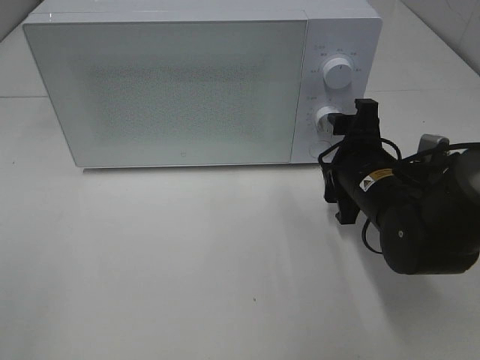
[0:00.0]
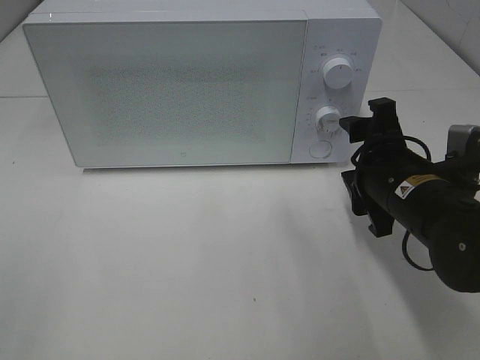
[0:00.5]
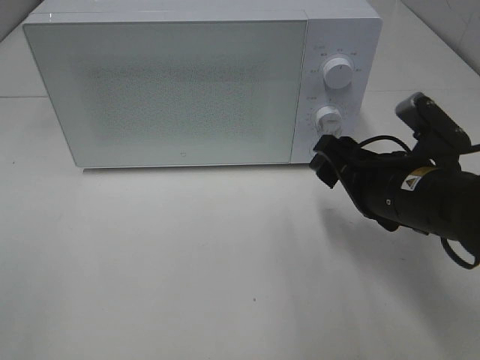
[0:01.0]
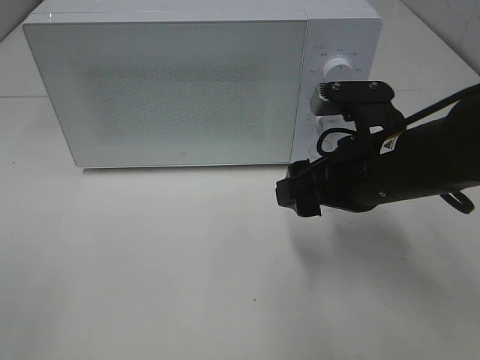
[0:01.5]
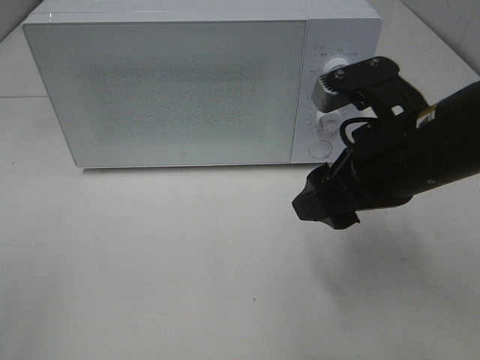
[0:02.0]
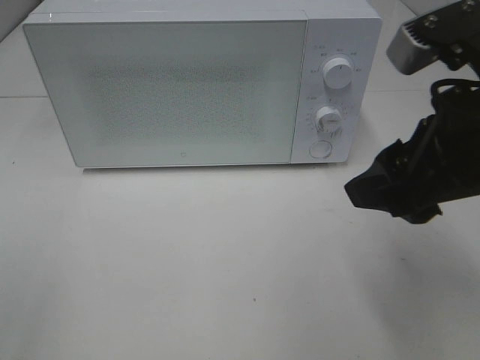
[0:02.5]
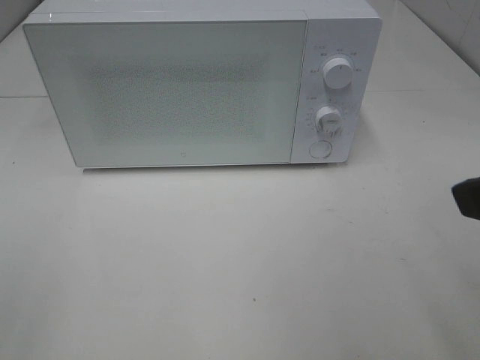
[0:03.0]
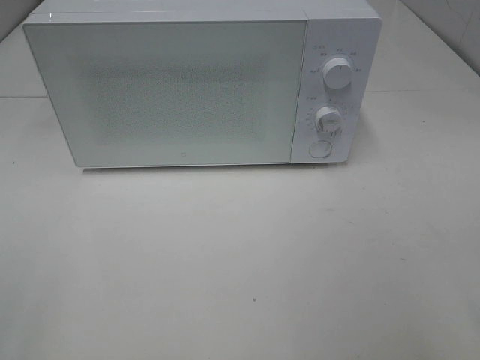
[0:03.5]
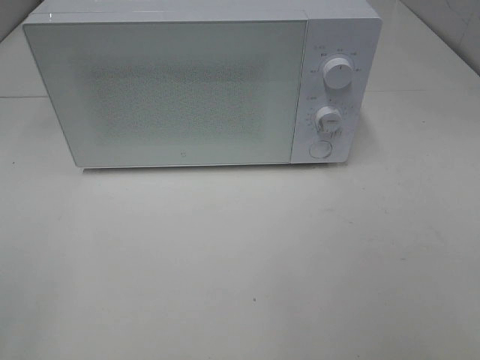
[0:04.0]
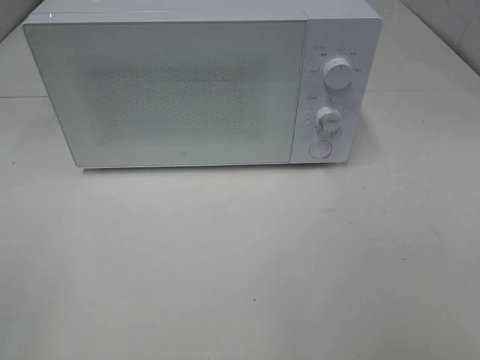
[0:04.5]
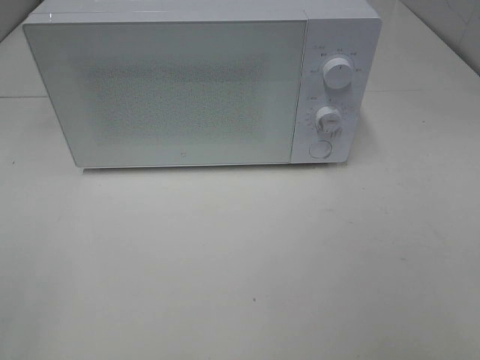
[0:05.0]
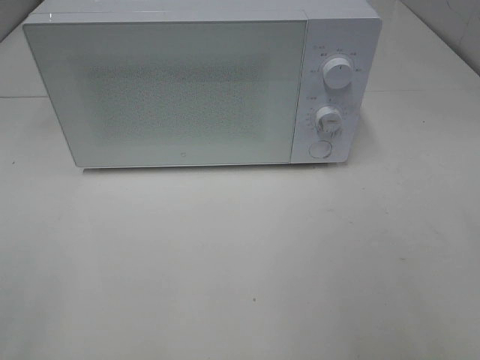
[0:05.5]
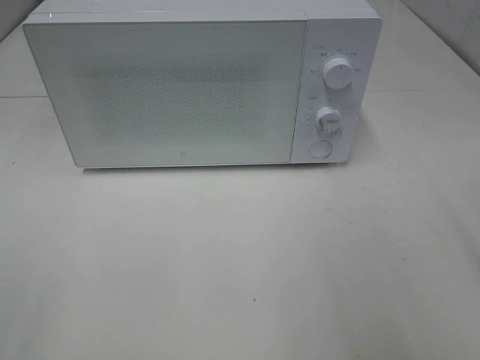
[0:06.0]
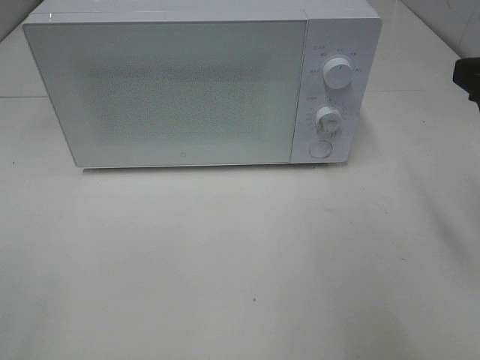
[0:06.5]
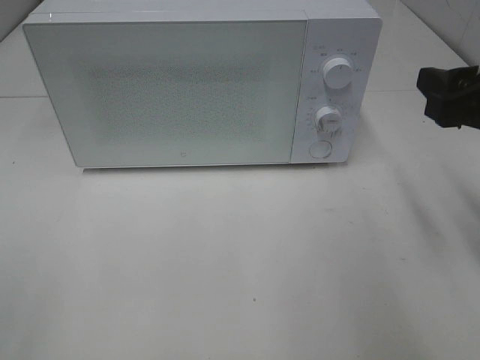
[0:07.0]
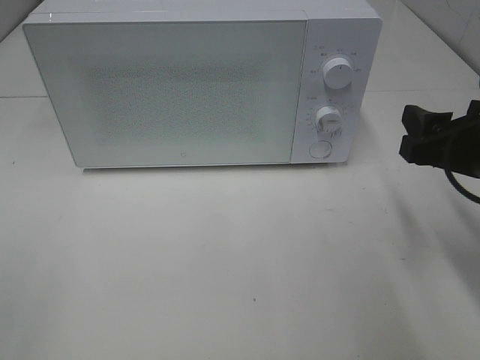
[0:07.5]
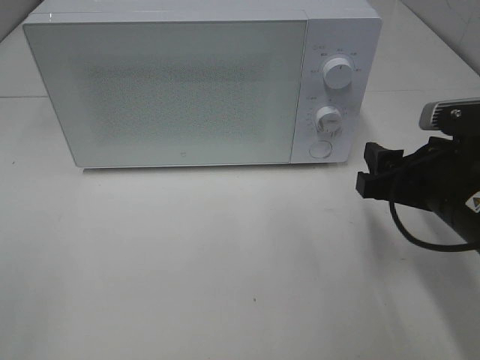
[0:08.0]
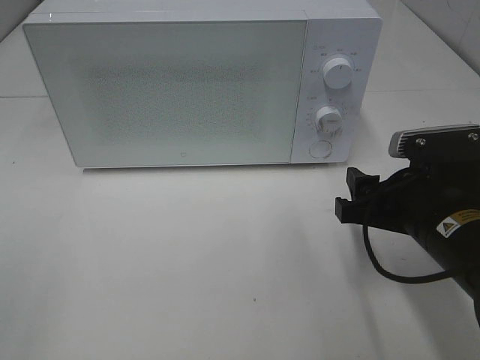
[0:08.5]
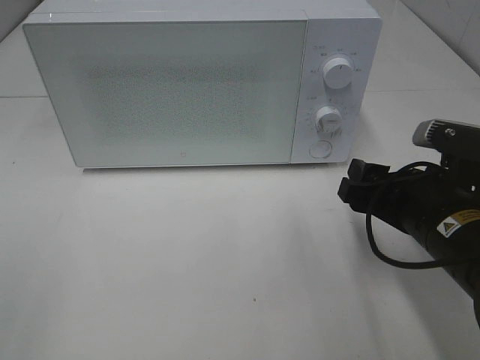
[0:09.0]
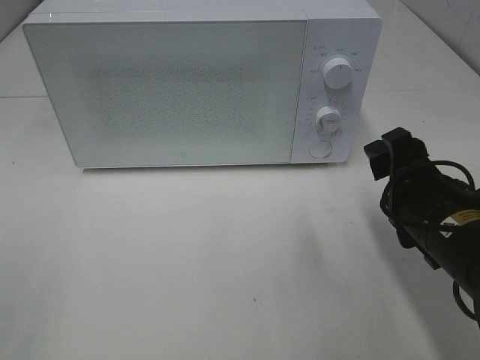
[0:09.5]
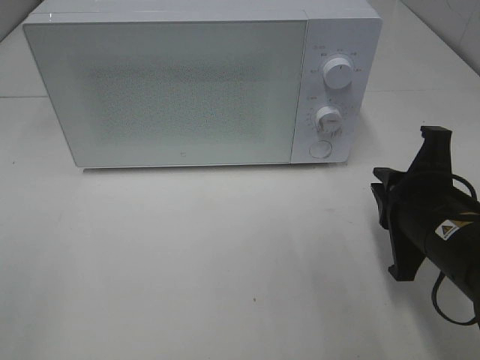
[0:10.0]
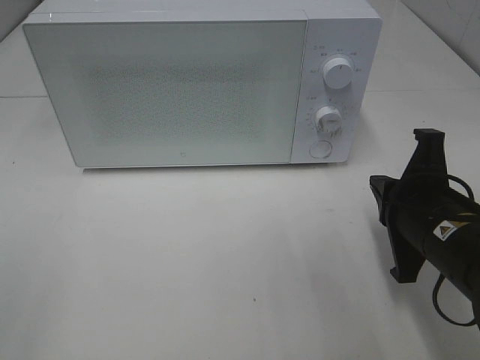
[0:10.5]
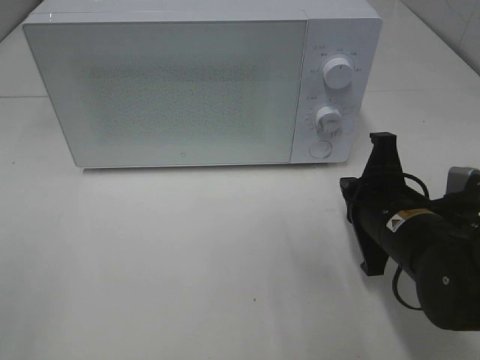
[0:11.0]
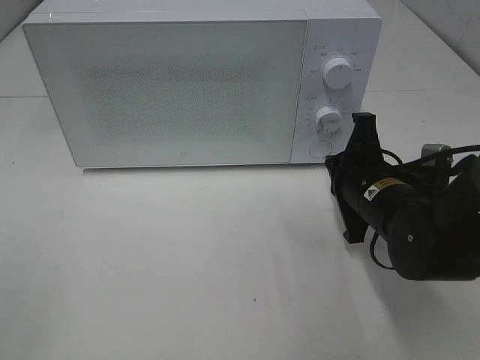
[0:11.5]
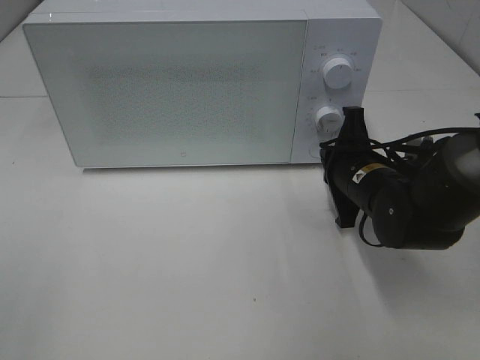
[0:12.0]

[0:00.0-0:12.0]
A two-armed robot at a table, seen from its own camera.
Task of the whole recording: Heat Sandwich.
0.0 to 2.0 s: The right gripper goes roughly 15 cm upward and backward.
2.0 to 4.0 s: The right gripper goes approximately 25 cm backward and to the right.
6.0 to 8.0 s: The right gripper travels downward, forward and to the left by roughly 15 cm.
8.0 to 10.0 s: The right gripper closes up.
10.0 to 12.0 s: The right gripper is displaced forward by some 10 cm.

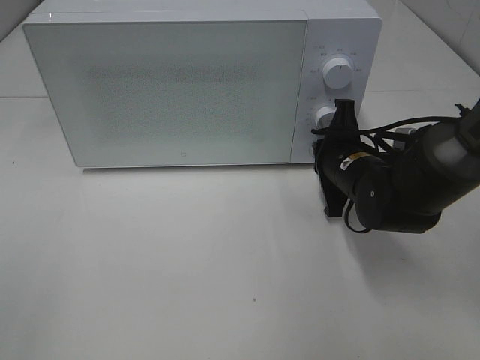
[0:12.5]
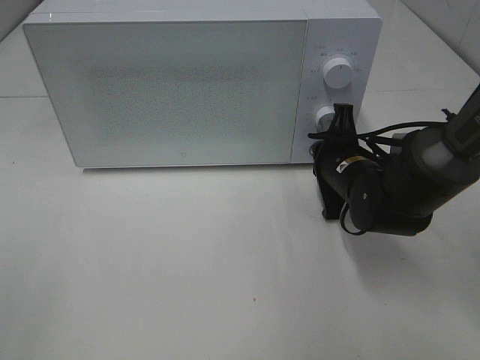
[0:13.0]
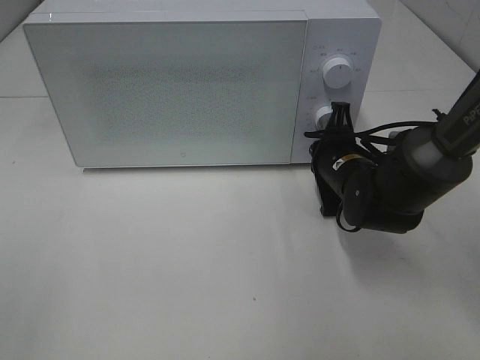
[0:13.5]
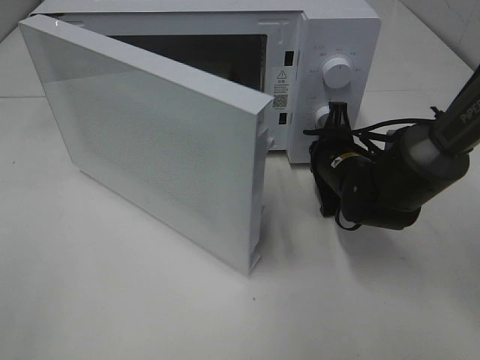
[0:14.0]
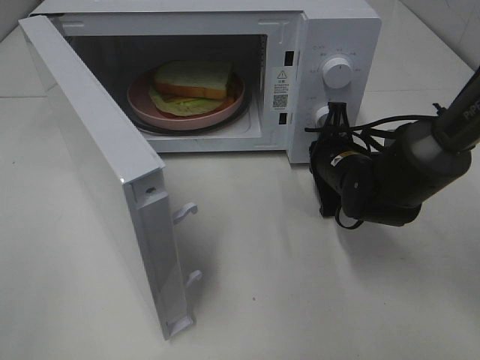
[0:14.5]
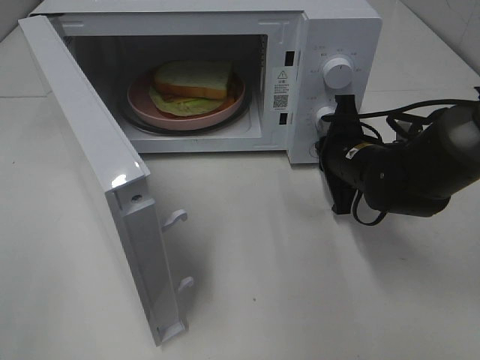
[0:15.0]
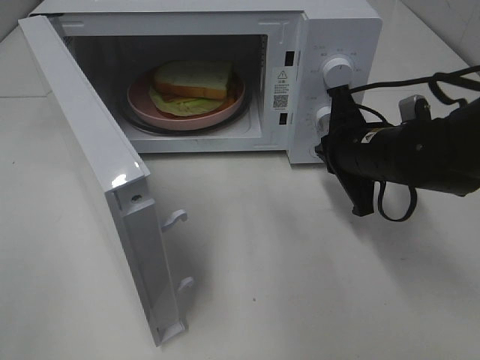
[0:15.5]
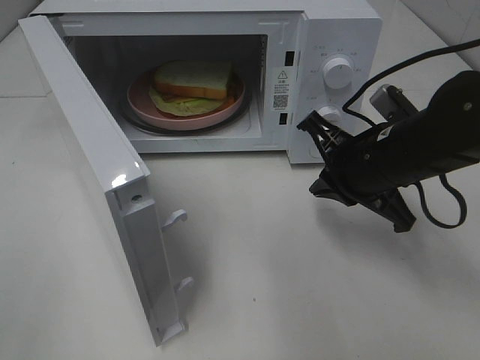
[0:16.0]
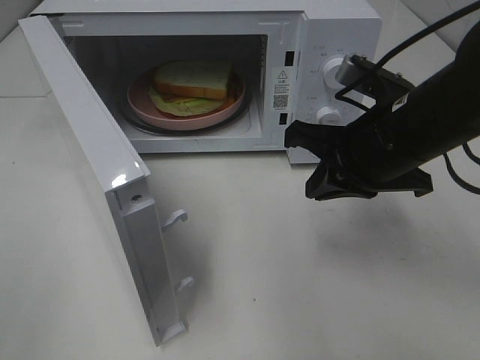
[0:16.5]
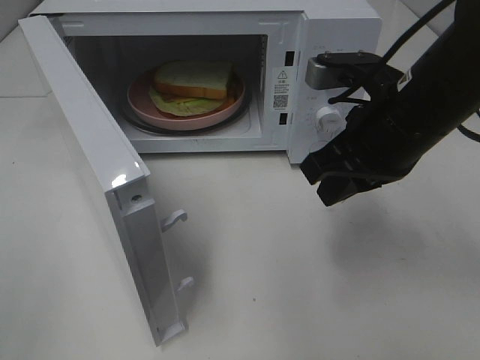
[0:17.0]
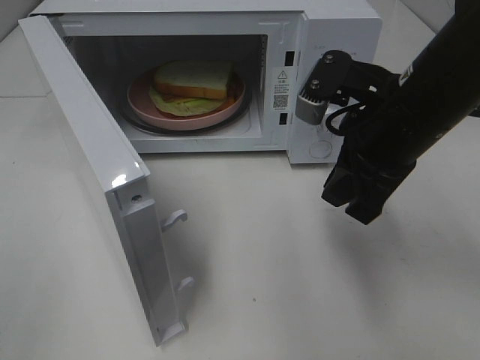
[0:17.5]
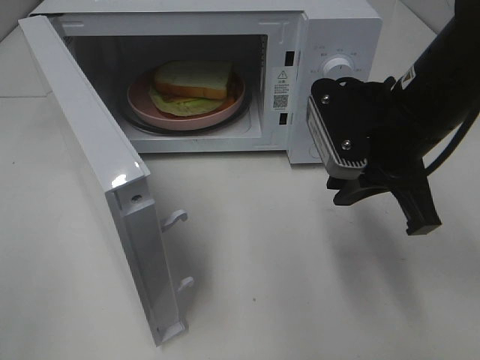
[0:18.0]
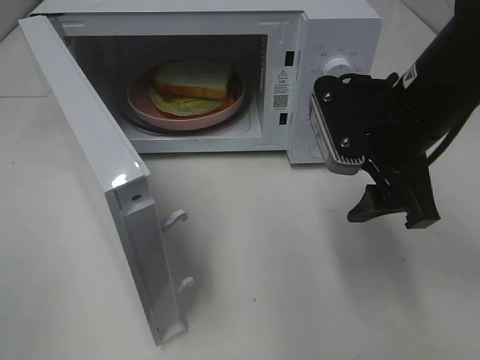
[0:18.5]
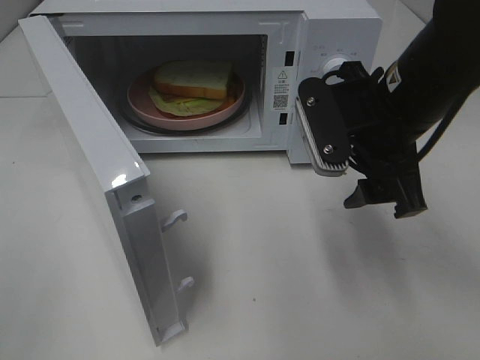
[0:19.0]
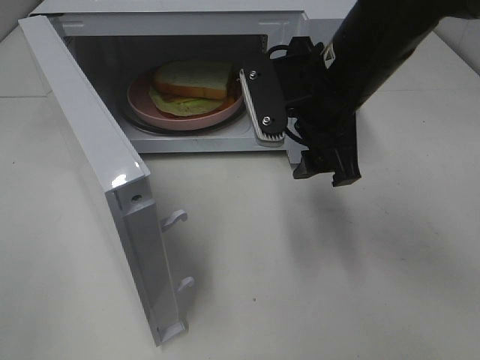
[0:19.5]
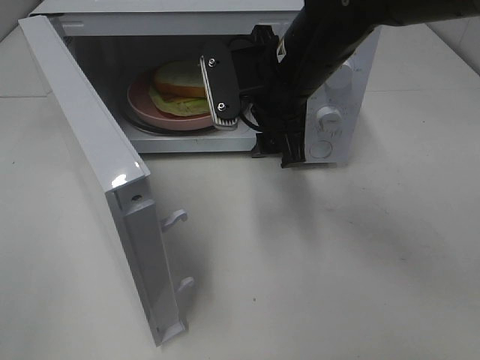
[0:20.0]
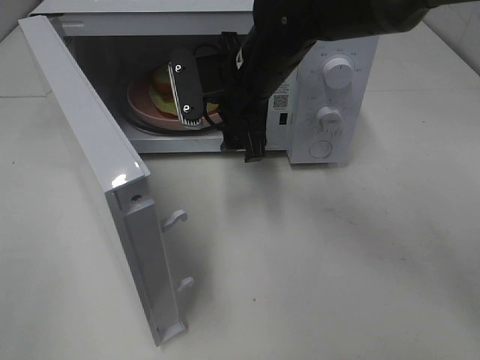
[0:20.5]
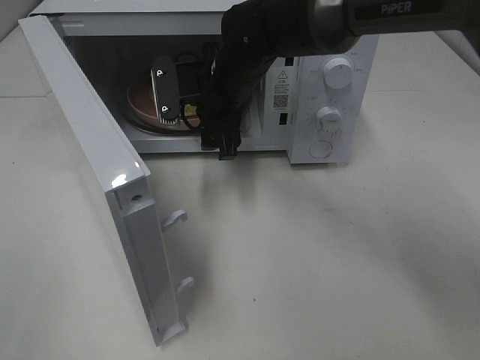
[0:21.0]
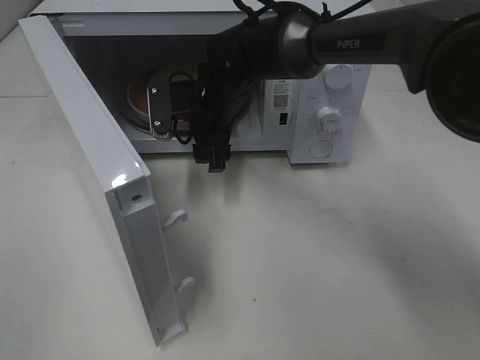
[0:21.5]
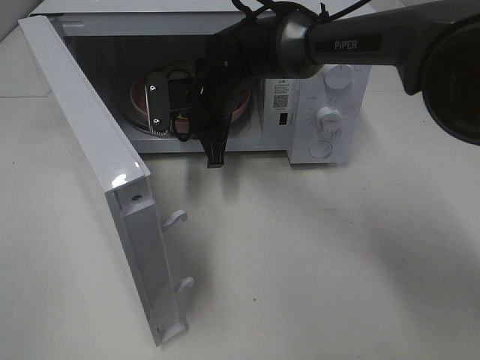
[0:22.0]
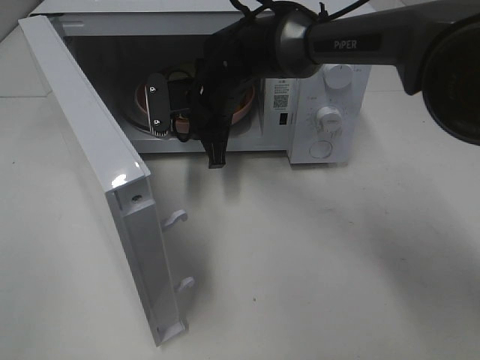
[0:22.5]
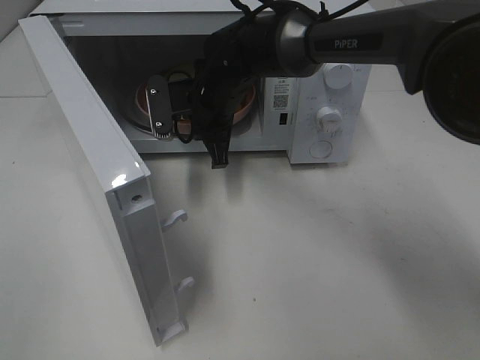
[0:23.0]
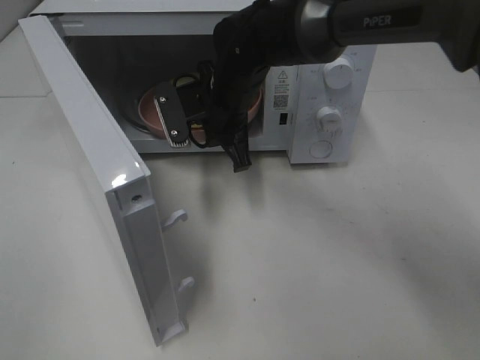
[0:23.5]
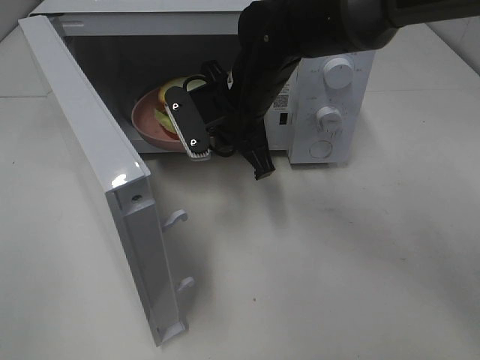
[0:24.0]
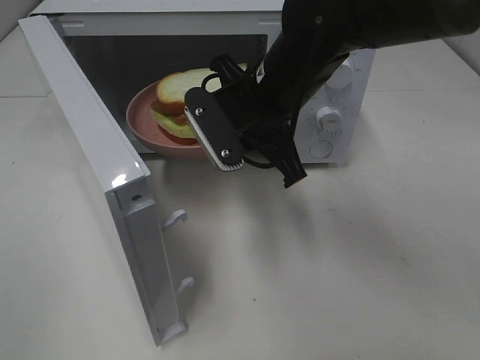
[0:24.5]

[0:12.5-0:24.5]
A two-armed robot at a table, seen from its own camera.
Task of the whole recording: Heat Sandwich.
Step, 12.5 to 15.5 s: Right hand: press the switch.
Step, 16.0 to 22.0 s: Right hand: grab the plate with the sandwich.
14.5 to 16.5 s: The right gripper shifts roughly 15 cm upward and backward.
16.5 to 18.5 s: The right gripper opens its fingers.
18.5 to 20.5 s: The right gripper travels to the left and forward by some 15 cm.
20.5 to 22.5 s: The right gripper moves downward and forward, some 10 cm, and closes its fingers.
22.5 to 24.5 s: The right gripper heads backward, upward and to the right, covering roughly 15 cm.

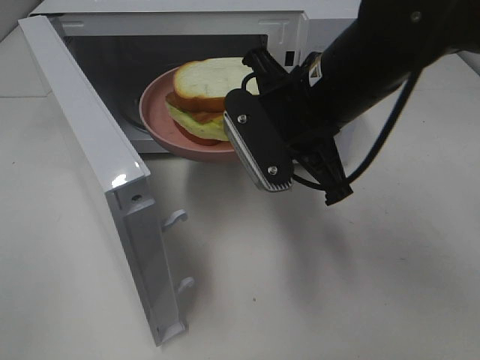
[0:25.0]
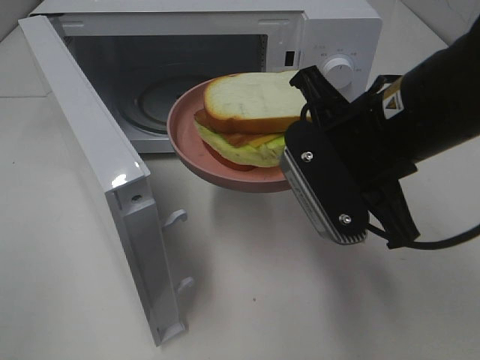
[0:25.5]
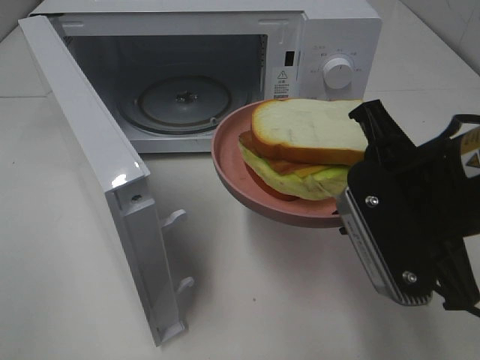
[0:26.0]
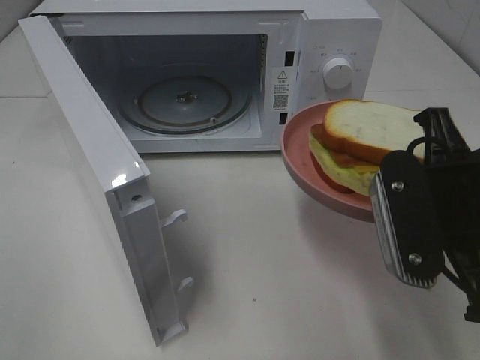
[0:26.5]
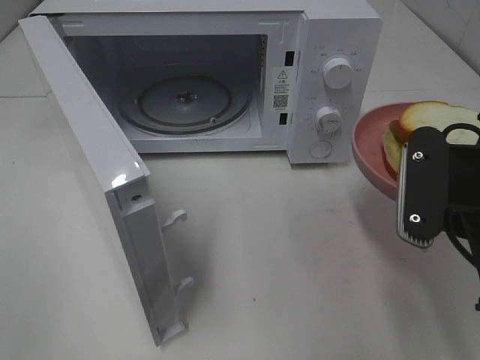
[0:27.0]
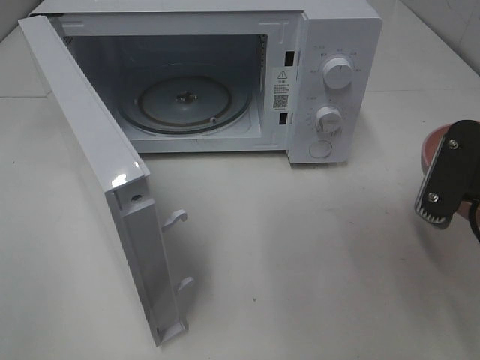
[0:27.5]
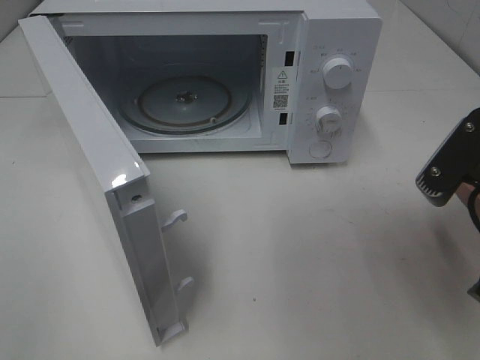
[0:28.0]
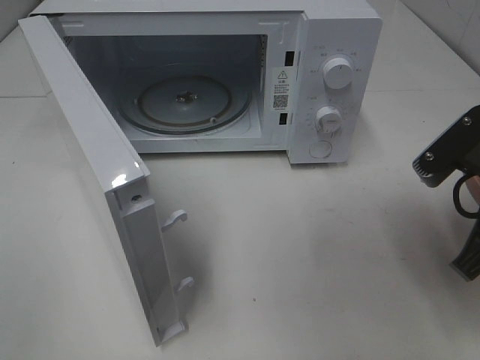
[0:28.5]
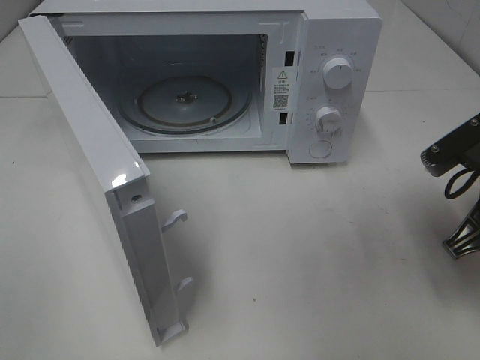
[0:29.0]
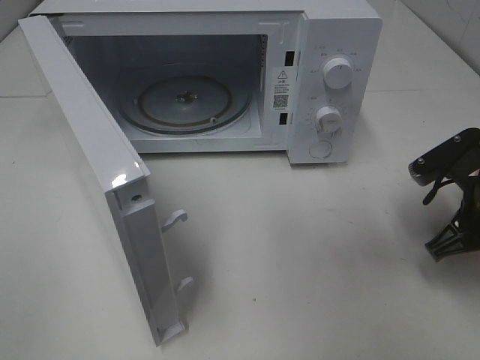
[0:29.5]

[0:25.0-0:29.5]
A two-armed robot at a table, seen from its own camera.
Task of the whole recording: Heat Sandwich.
25.0 to 27.0 s: The right gripper travels to the right and backward by approximately 15 cm.
27.0 to 29.5 s: The right gripper goes approximately 15 cm downward, forward and to the right.
